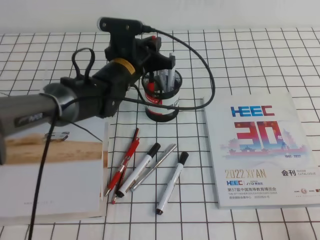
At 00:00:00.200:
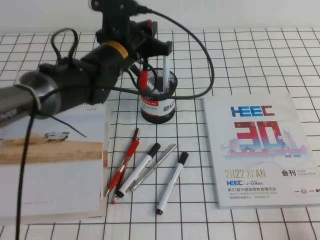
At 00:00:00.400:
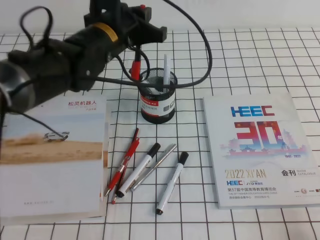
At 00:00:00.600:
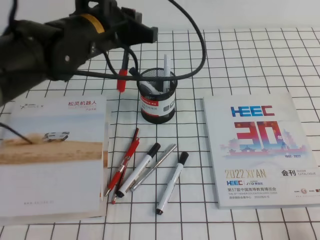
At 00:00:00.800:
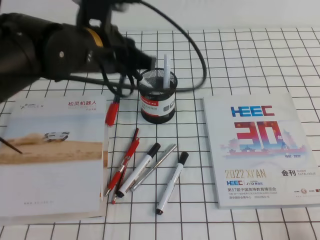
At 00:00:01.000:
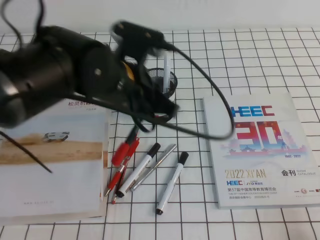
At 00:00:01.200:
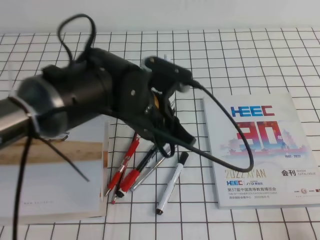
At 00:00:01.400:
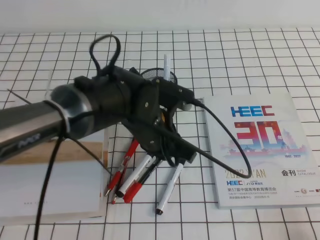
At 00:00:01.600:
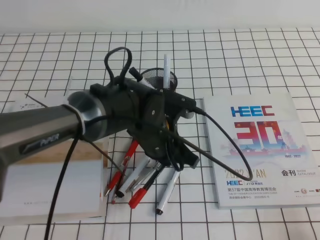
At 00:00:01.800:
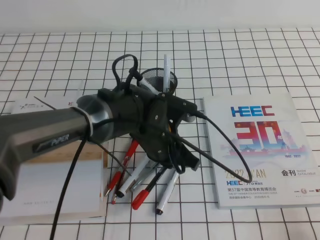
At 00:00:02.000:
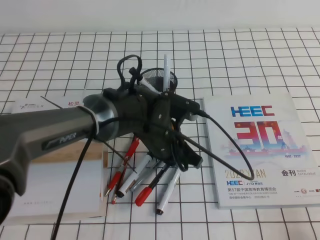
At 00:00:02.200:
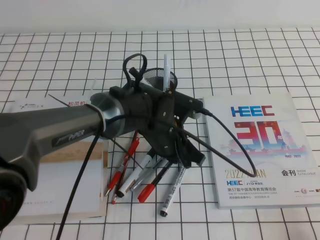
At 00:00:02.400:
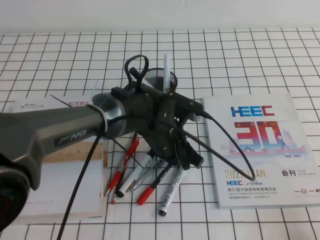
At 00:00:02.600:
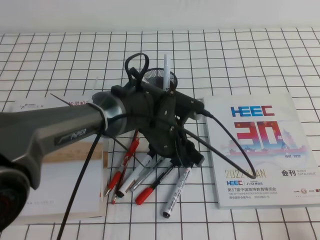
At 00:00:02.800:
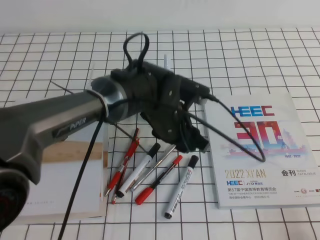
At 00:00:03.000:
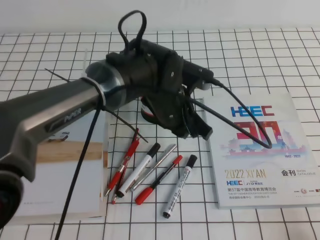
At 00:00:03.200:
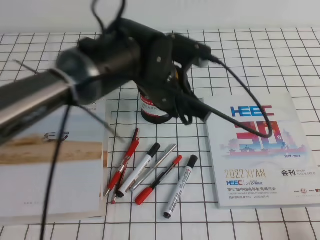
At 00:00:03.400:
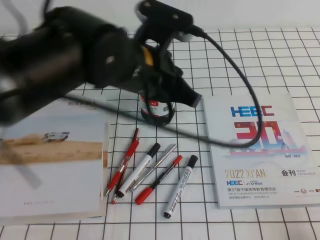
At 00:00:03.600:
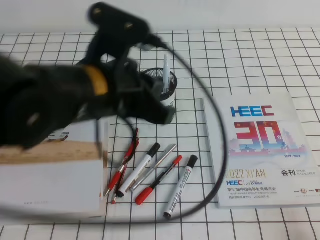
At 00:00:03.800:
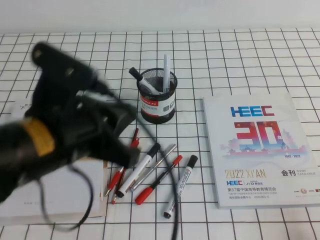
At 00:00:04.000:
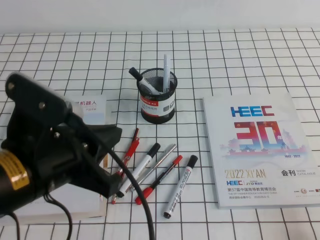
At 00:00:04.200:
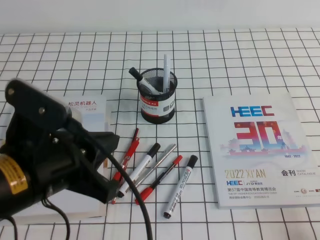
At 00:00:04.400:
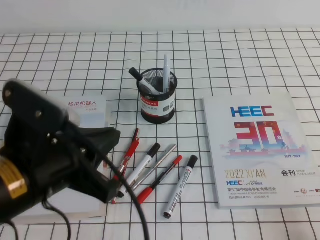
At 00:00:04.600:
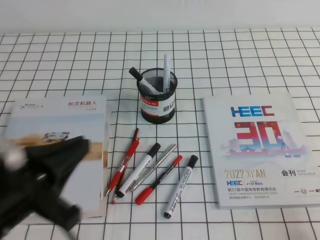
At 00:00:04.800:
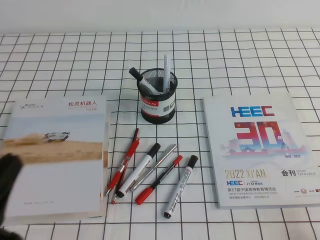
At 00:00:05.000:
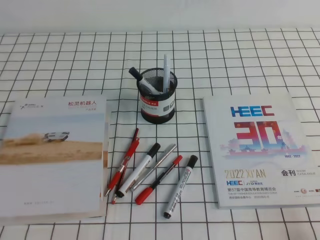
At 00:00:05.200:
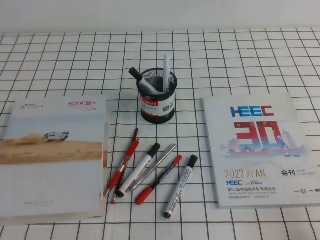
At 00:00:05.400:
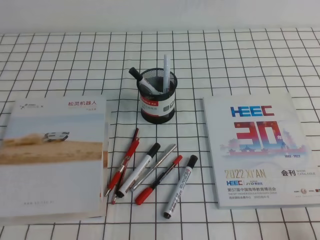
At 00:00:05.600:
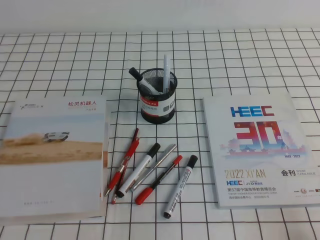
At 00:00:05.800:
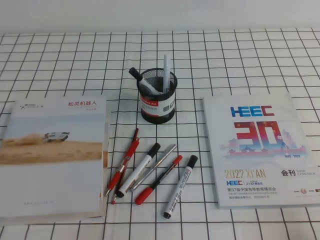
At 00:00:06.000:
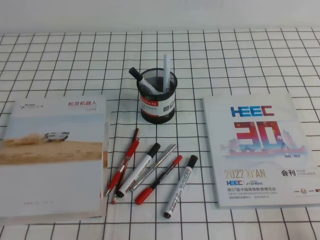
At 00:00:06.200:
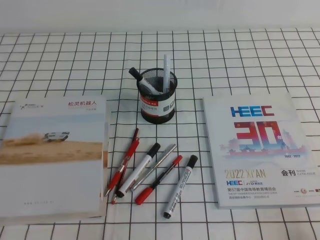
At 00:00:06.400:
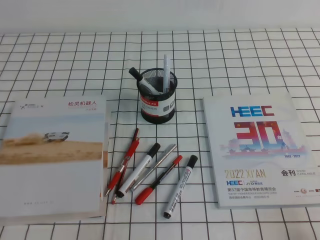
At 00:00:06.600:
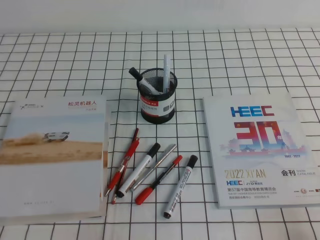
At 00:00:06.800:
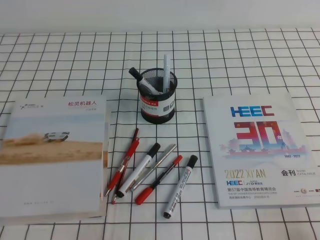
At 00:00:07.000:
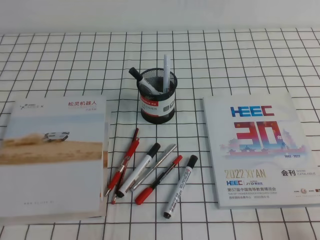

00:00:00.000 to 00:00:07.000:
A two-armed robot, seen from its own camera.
Step, 00:00:00.000 to 00:00:07.000: Pick up the pen from the pen holder.
00:00:00.000 to 00:00:01.400: The left gripper goes approximately 15 cm backward.
00:00:01.400 to 00:00:02.800: The left gripper moves roughly 5 cm, and opens.
00:00:02.800 to 00:00:04.200: The left gripper is displaced backward, to the left and upward by some 25 cm, and closes its fingers.
00:00:04.200 to 00:00:05.600: The left gripper heads to the left, downward and backward, covering approximately 20 cm.
